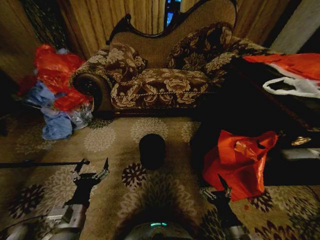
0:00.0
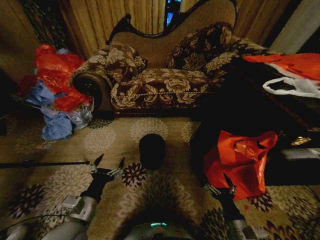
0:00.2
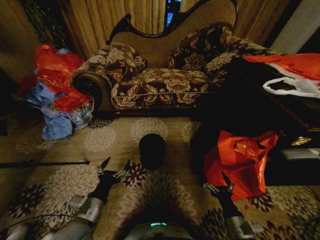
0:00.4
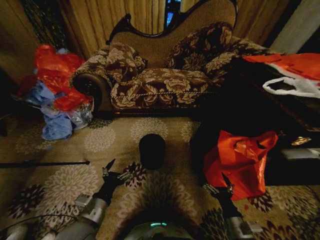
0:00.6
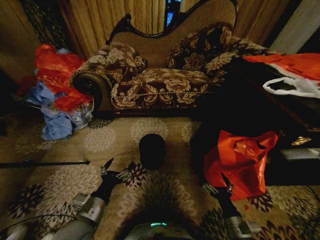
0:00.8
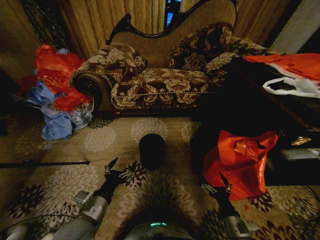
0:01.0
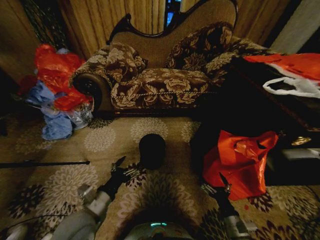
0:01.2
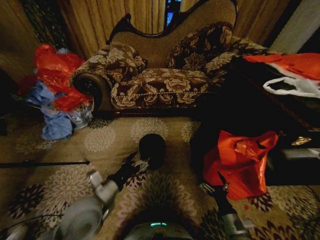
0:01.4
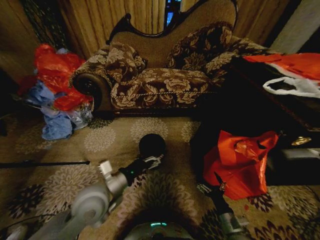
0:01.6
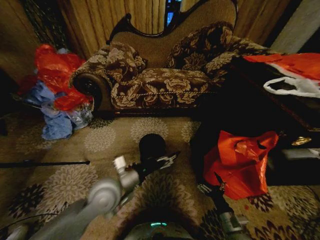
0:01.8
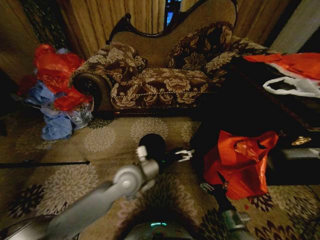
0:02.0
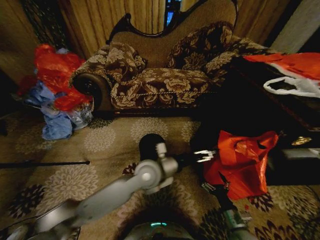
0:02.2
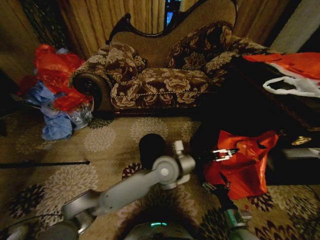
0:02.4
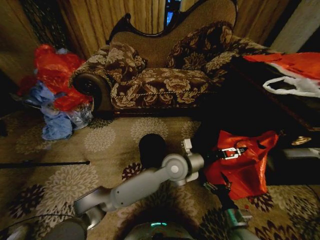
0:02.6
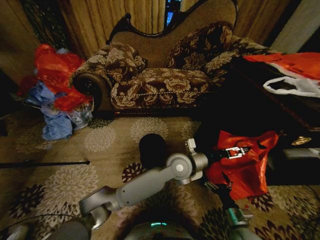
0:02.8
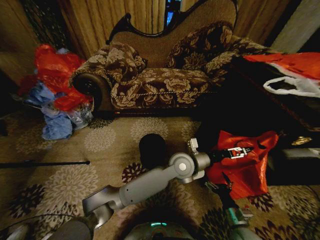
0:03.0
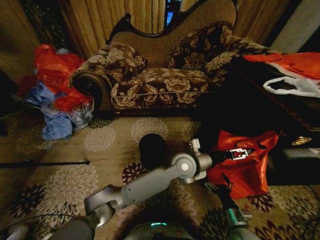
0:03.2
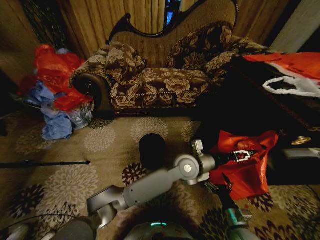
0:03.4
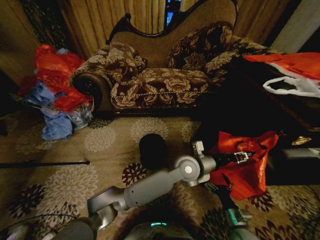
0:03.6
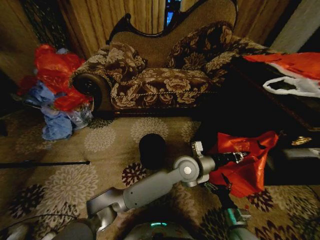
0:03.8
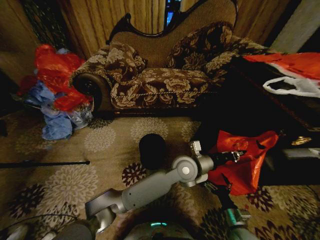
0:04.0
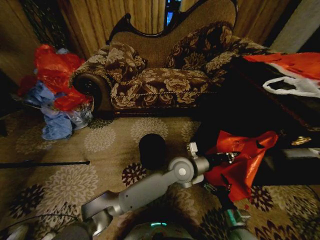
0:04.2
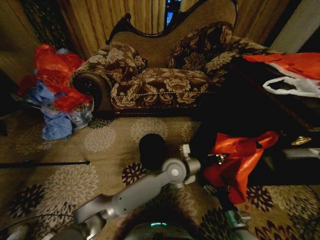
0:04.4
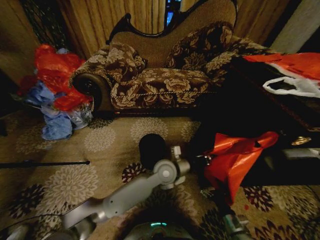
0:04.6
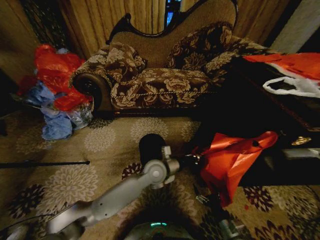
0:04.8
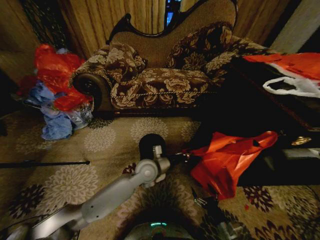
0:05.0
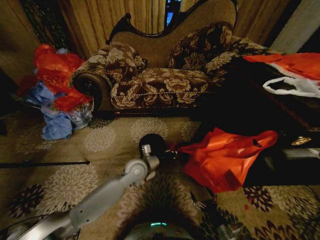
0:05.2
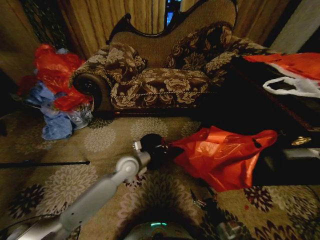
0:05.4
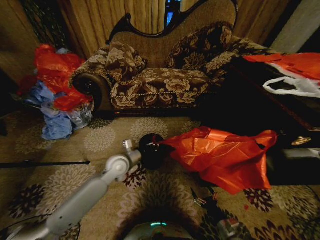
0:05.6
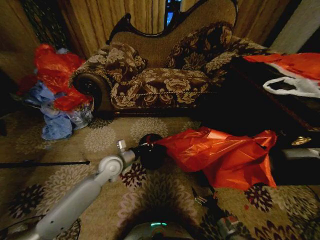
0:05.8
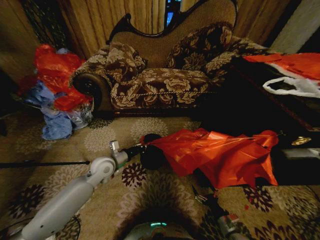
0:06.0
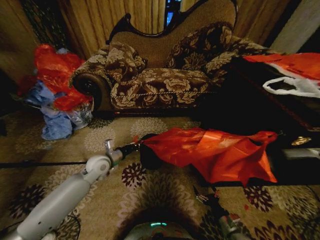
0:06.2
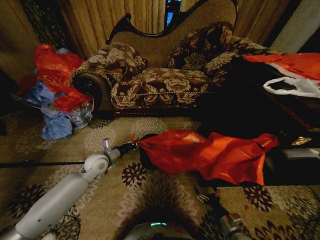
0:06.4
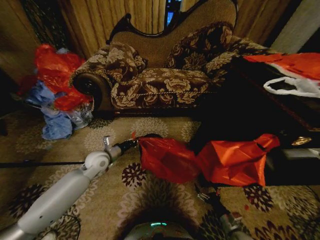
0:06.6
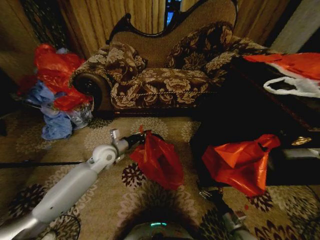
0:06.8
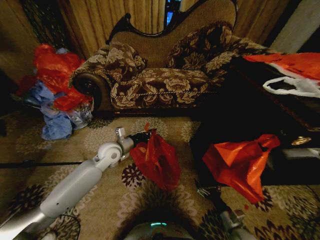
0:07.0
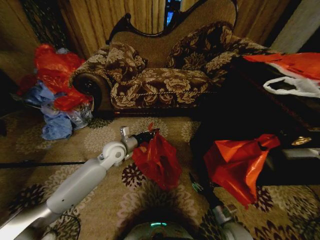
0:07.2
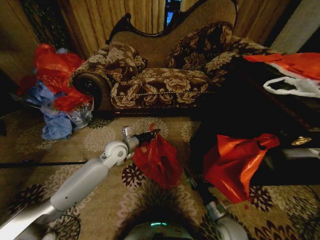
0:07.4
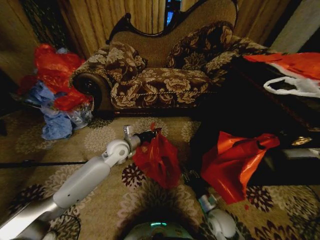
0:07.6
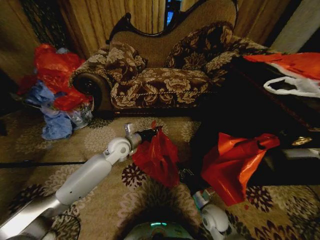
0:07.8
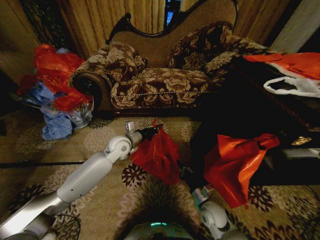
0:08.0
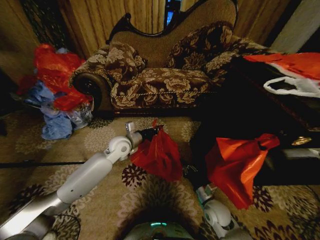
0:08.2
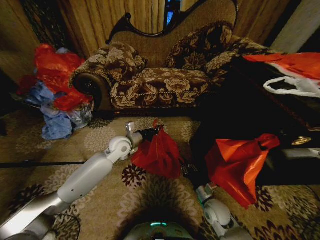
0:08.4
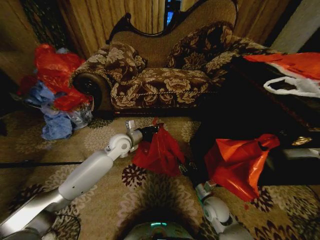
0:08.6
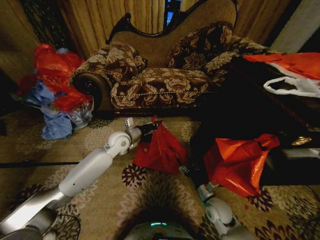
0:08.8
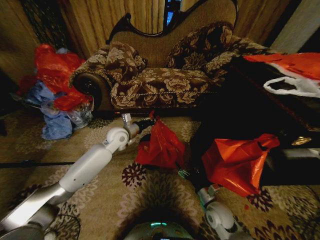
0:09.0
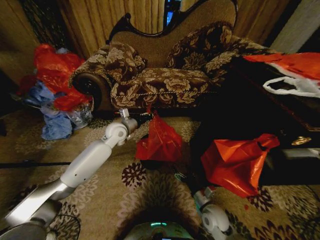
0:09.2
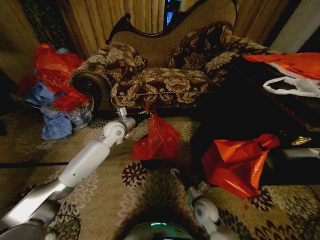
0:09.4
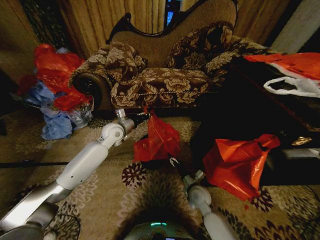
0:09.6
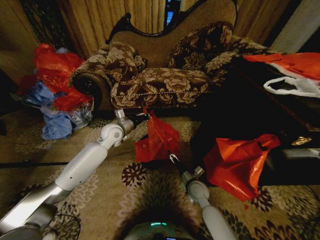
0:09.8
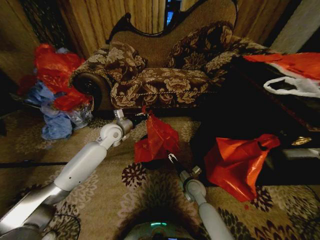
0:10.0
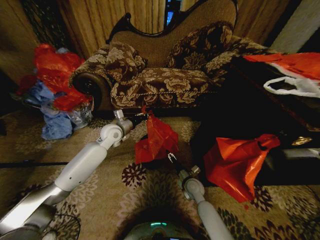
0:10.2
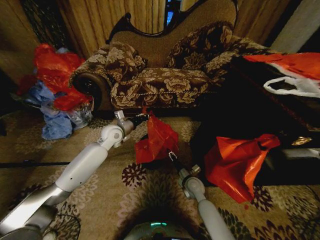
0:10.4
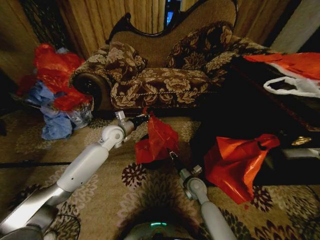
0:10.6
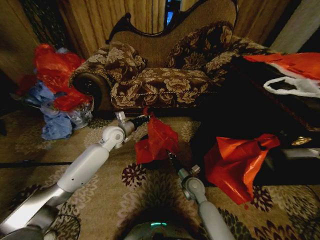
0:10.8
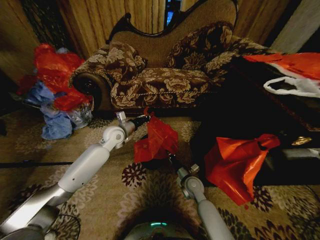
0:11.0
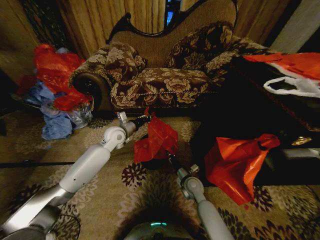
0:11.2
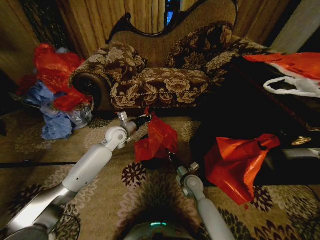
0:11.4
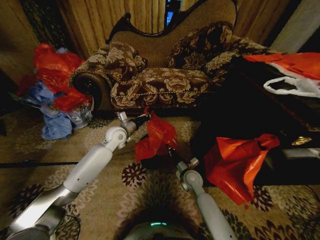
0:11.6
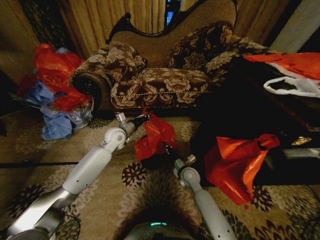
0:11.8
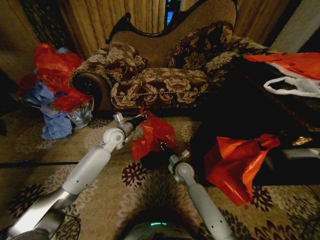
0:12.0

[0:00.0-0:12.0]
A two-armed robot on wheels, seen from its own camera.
Task of the whole recording: Place a garbage bag over the trash bin.
0:01.6 to 0:03.0: The left gripper moves to the right and forward, roughly 30 cm.
0:03.0 to 0:04.4: The left gripper closes.
0:04.4 to 0:06.0: The left gripper heads to the left, covering some 30 cm.
0:06.0 to 0:07.6: The right gripper goes approximately 10 cm to the left, forward and upward, and closes, while the left gripper heads forward and to the right, covering approximately 10 cm.
0:07.6 to 0:09.0: The left gripper shifts by roughly 5 cm. Meanwhile the right gripper opens.
0:09.0 to 0:10.4: The right gripper goes some 15 cm forward and to the left.
0:10.4 to 0:12.0: The right gripper changes place by about 10 cm, and closes up.

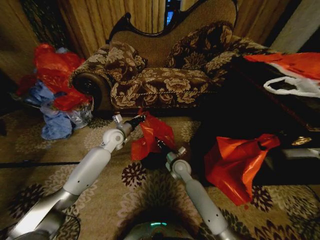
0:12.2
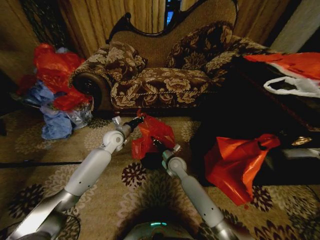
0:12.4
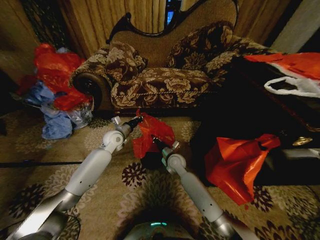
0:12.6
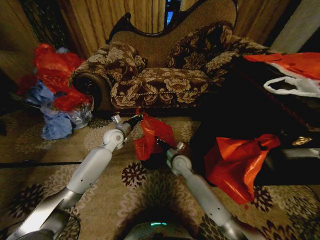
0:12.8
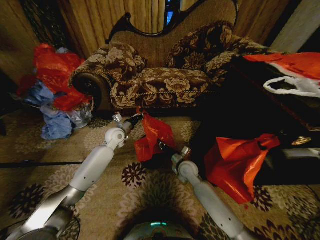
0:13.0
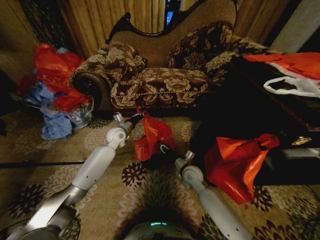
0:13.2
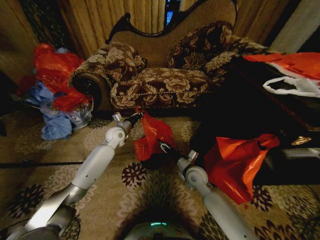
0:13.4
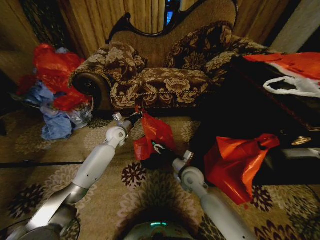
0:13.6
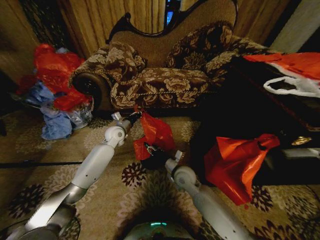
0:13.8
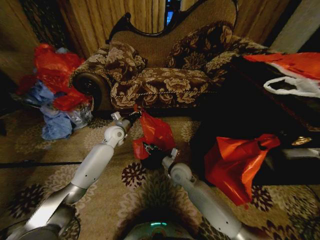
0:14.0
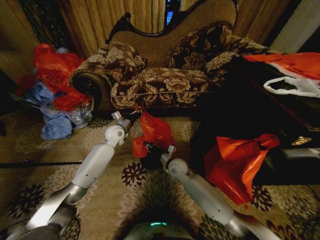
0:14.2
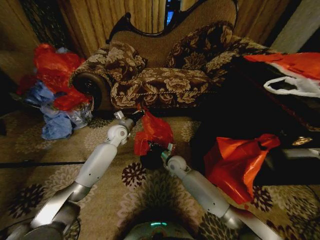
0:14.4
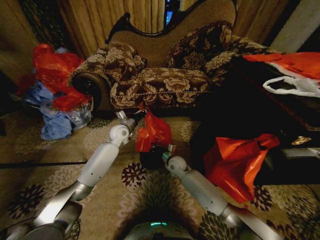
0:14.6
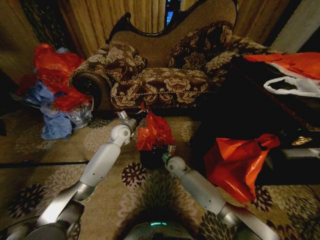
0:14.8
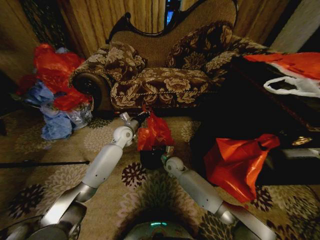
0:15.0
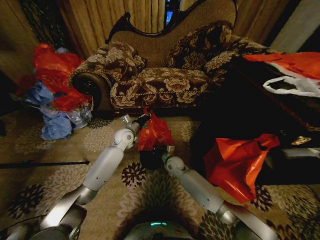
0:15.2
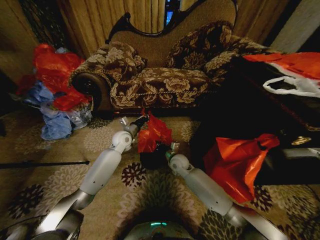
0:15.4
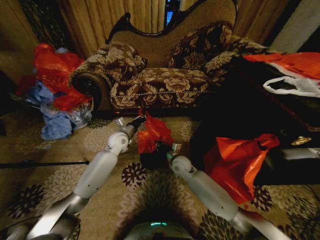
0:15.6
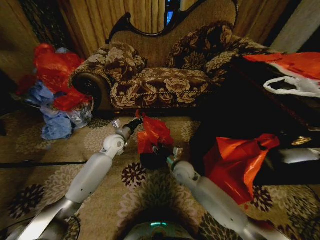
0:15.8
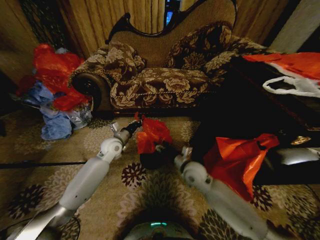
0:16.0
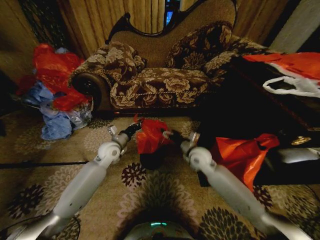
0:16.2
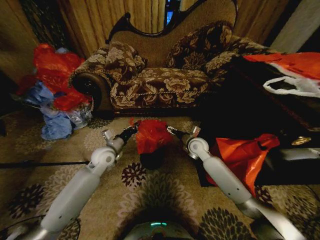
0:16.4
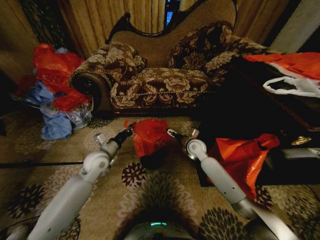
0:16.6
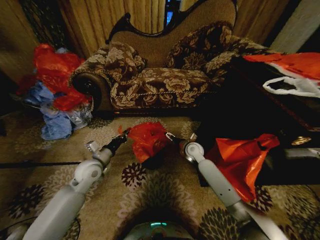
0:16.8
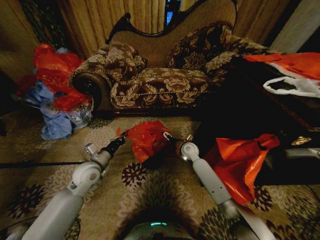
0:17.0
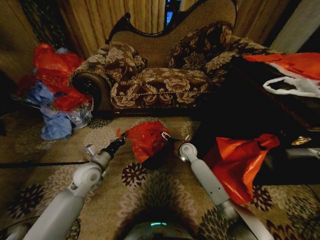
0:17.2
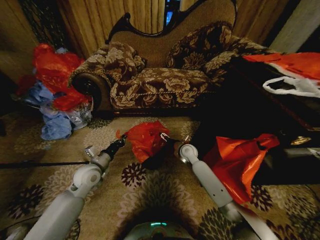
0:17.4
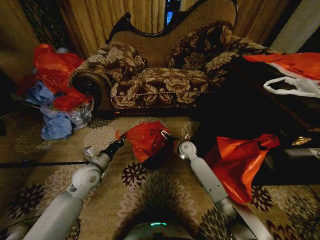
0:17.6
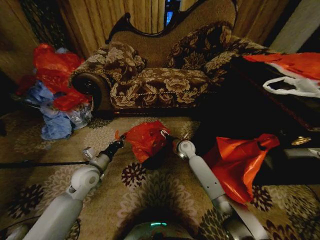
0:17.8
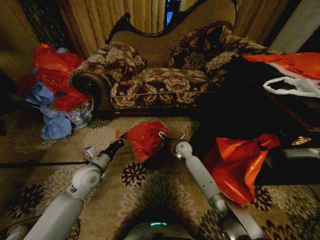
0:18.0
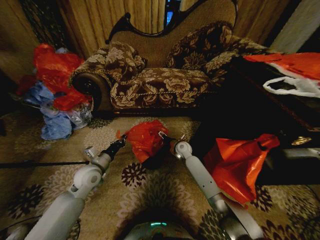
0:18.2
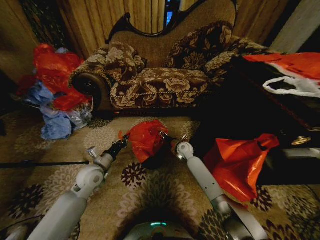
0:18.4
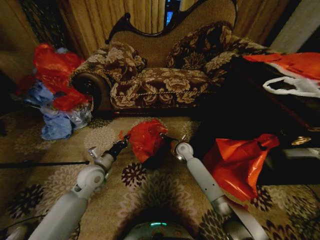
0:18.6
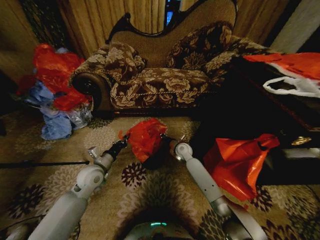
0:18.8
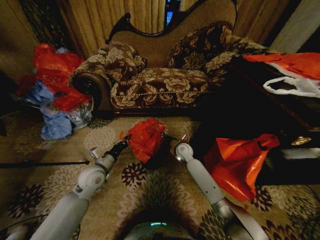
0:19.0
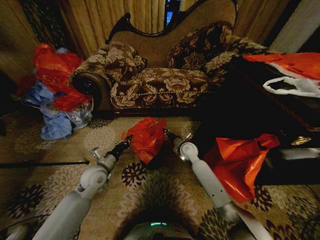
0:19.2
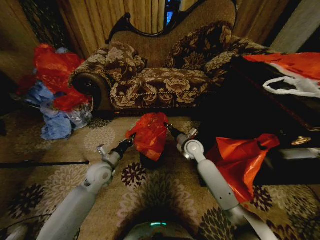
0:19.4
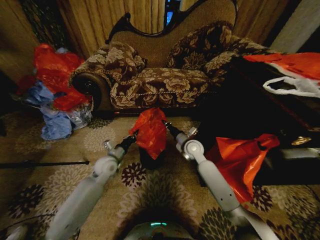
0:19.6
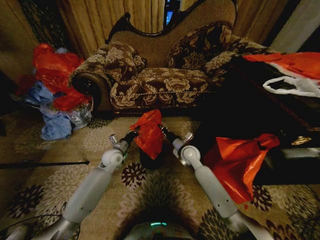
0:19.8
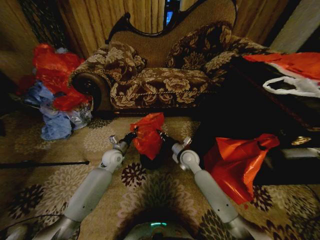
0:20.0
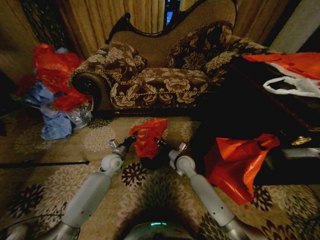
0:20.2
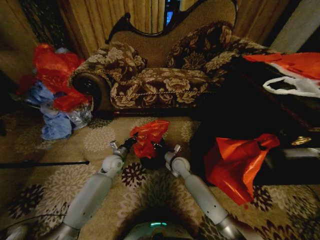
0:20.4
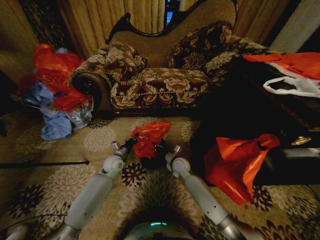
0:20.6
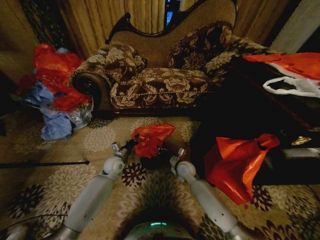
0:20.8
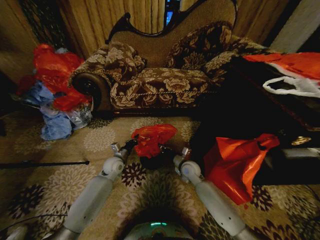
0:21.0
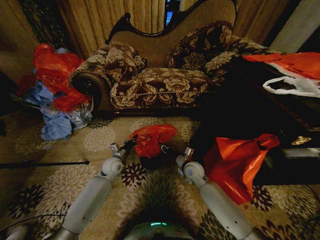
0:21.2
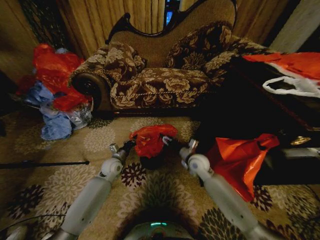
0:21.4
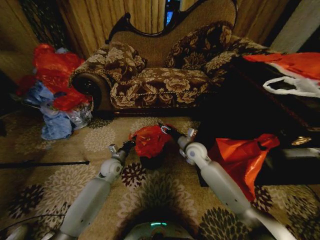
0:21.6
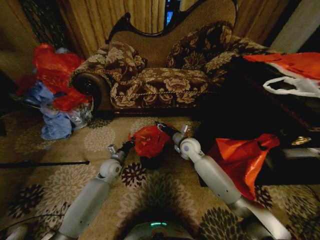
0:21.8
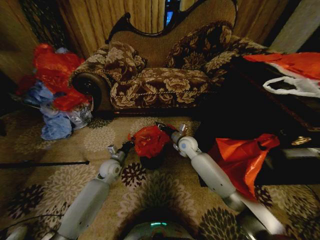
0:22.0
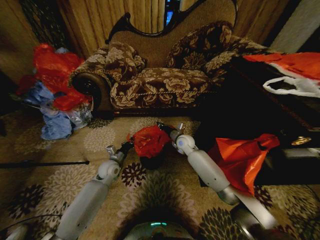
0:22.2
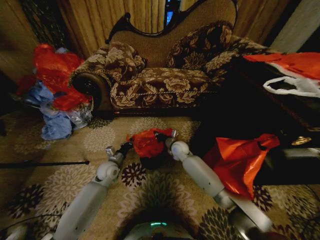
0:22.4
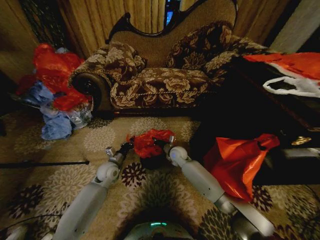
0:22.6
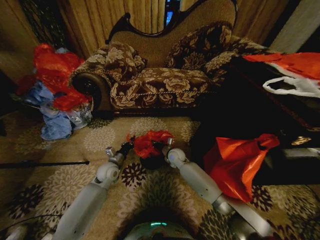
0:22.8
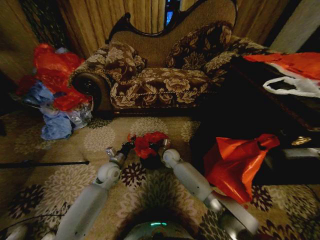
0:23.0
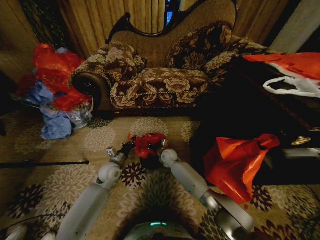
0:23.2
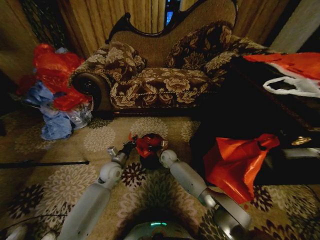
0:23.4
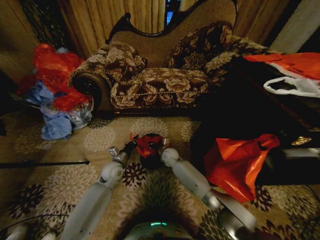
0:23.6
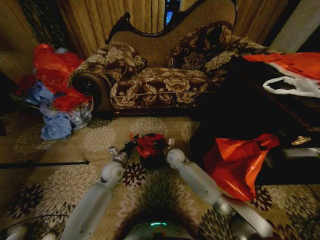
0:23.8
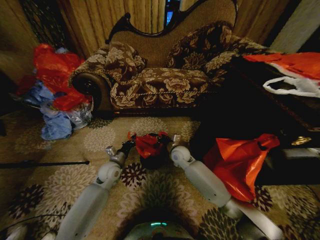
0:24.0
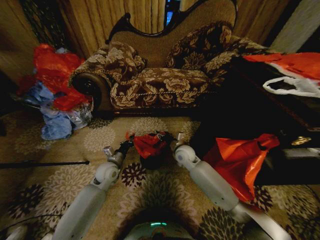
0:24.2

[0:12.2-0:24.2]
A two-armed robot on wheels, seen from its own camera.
Task of the whole recording: Place a garbage bag over the trash bin.
0:12.2 to 0:13.8: The right gripper is displaced backward by some 5 cm, and opens its fingers.
0:13.8 to 0:15.2: The right gripper travels forward and downward by roughly 10 cm, and closes up; the left gripper ends up roughly 5 cm from where it was.
0:15.2 to 0:16.6: The left gripper moves backward and to the left, approximately 15 cm, while the right gripper shifts roughly 15 cm to the right and upward, reaches roughly 10 cm backward, then returns, and opens up.
0:16.6 to 0:18.2: The right gripper goes roughly 10 cm downward and to the left; the left gripper ends up some 5 cm from where it was.
0:18.2 to 0:19.8: The right gripper is displaced backward and upward by some 10 cm, and closes up. Meanwhile the left gripper is displaced forward and to the right by roughly 10 cm.
0:19.8 to 0:21.2: The right gripper travels backward and downward by approximately 10 cm, and opens, while the left gripper moves roughly 5 cm.
0:21.2 to 0:22.6: The right gripper travels forward and to the left by roughly 10 cm, and closes its fingers.
0:22.6 to 0:24.2: The right gripper heads upward, covering roughly 5 cm, and opens up.
